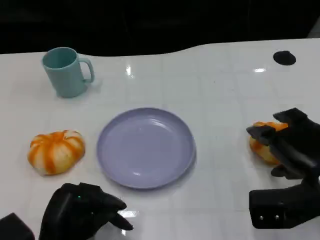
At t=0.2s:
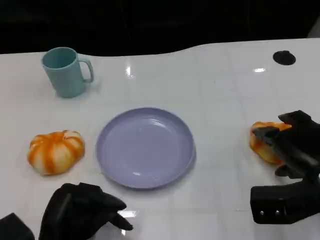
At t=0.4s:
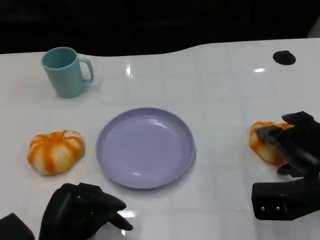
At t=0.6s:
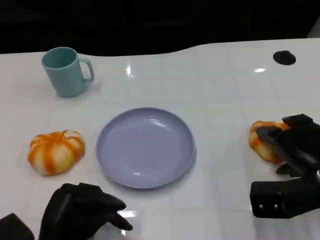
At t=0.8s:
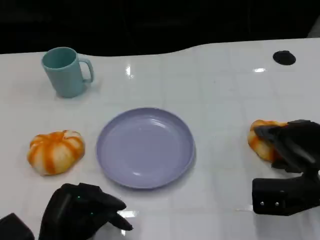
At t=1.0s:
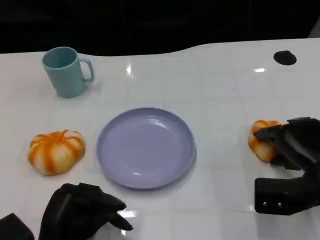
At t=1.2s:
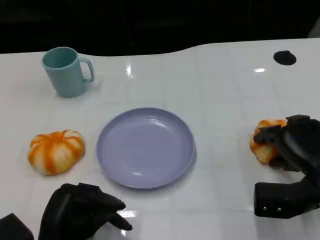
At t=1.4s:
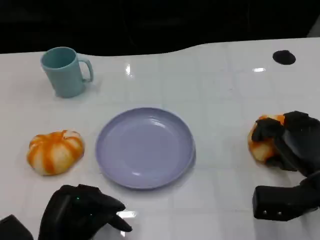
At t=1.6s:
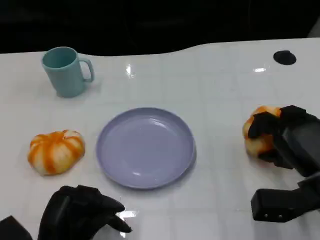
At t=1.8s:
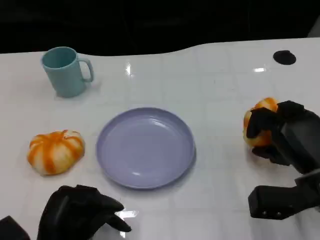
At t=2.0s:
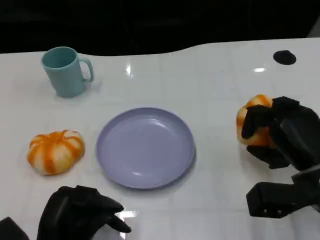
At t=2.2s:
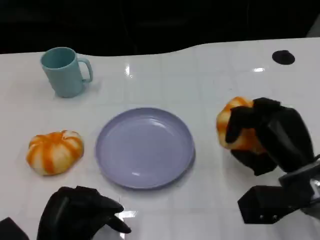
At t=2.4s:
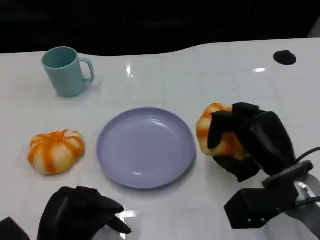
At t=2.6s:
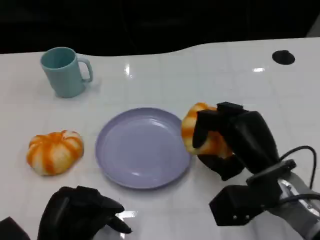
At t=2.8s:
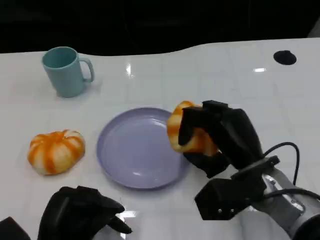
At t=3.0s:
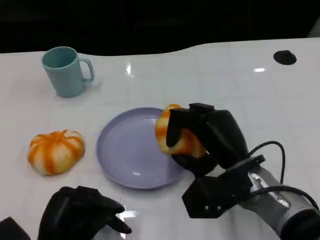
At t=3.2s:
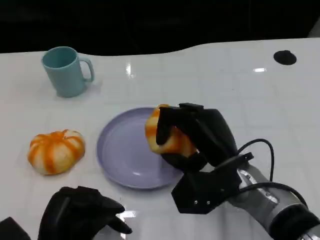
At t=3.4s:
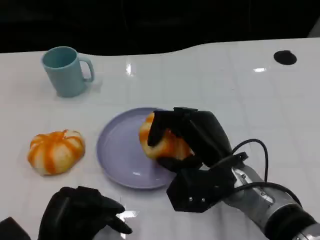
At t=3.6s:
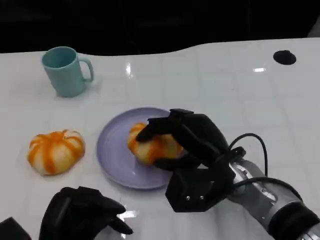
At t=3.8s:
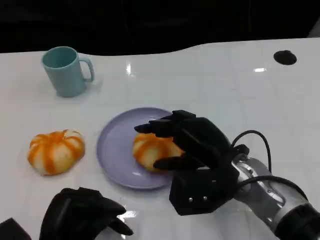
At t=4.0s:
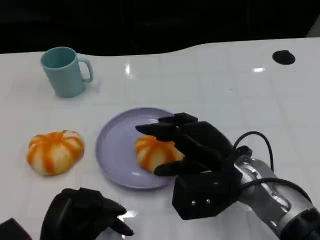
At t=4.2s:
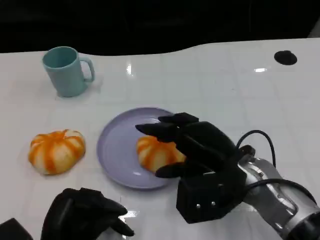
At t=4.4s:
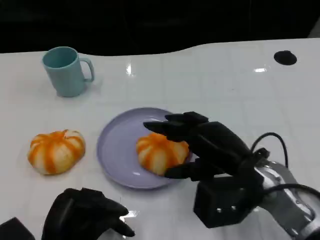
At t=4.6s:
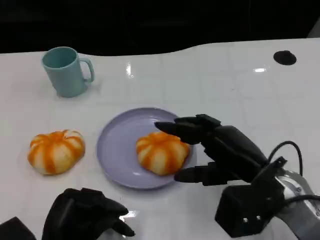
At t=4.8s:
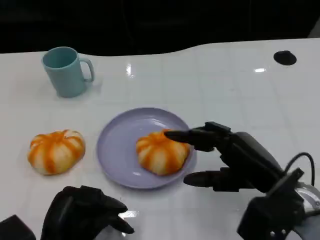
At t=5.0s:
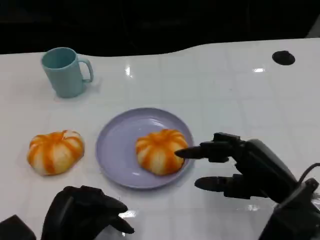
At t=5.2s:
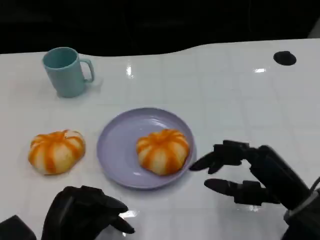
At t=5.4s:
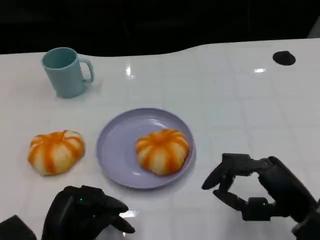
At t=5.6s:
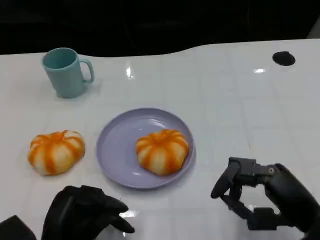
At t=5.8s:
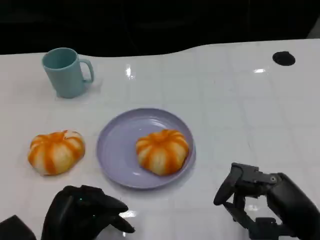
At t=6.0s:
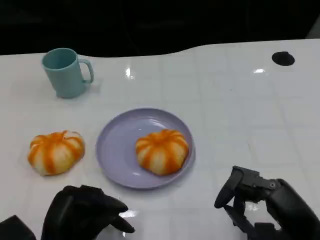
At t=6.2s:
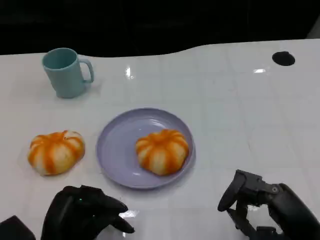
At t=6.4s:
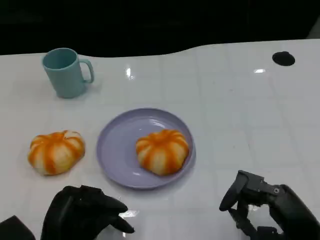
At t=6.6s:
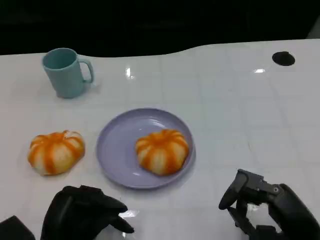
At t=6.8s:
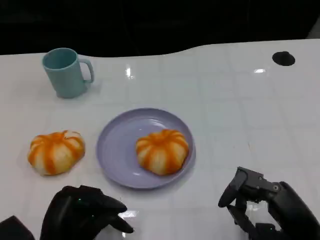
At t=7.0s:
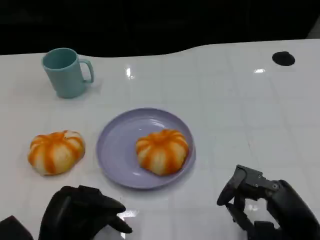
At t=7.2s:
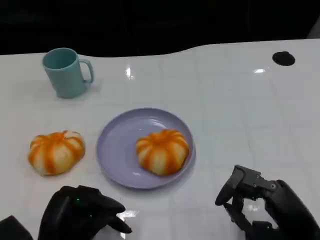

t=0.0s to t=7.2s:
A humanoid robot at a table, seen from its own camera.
Task of the whole recording: Grasp the bread from the table and place it into the plate.
t=1.4s to t=2.8s: The right hand is displaced to the left by roughly 10 cm.
t=4.4s to t=5.8s: The right hand heads backward and to the right, covering about 10 cm.
t=5.8s to t=7.2s: The hands move only a little.

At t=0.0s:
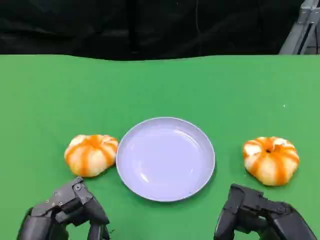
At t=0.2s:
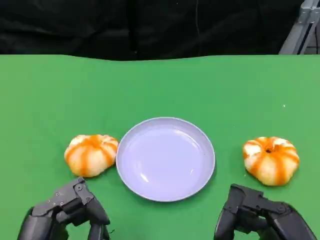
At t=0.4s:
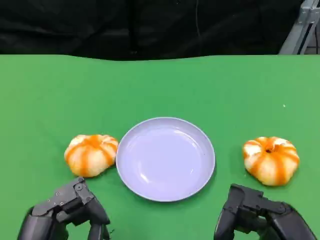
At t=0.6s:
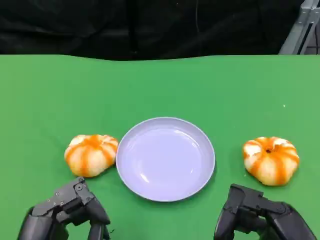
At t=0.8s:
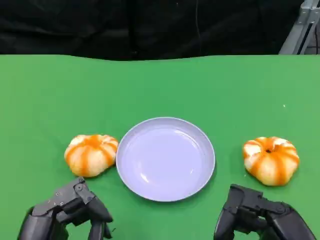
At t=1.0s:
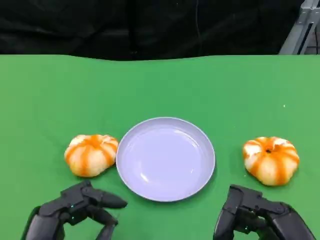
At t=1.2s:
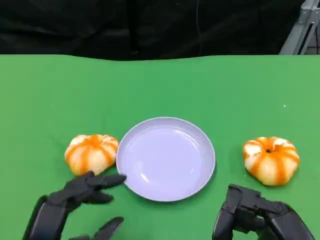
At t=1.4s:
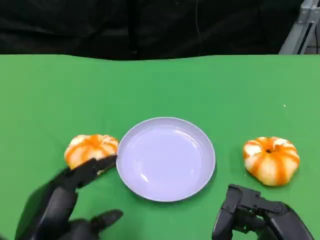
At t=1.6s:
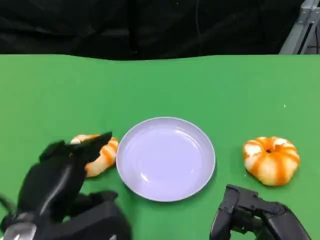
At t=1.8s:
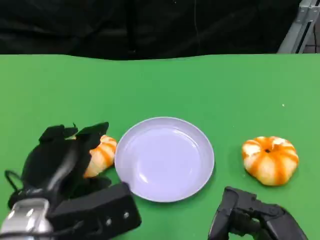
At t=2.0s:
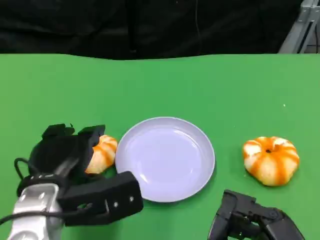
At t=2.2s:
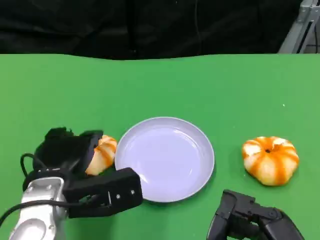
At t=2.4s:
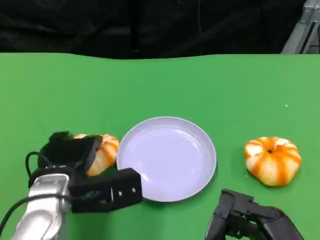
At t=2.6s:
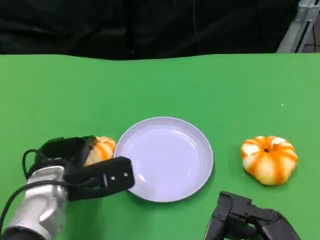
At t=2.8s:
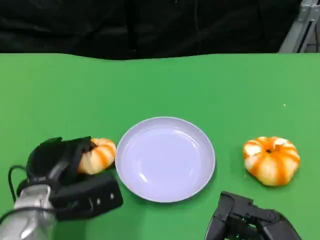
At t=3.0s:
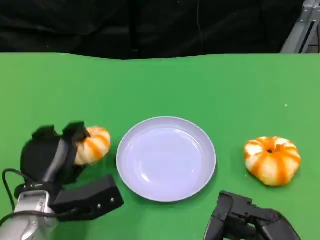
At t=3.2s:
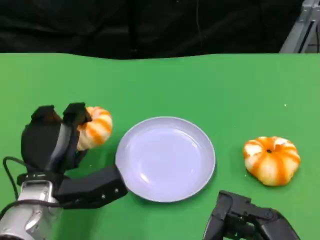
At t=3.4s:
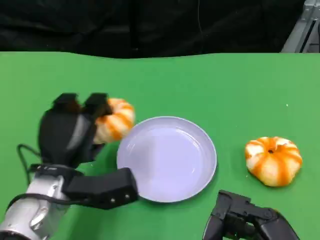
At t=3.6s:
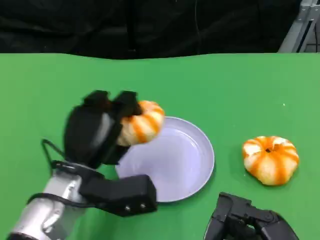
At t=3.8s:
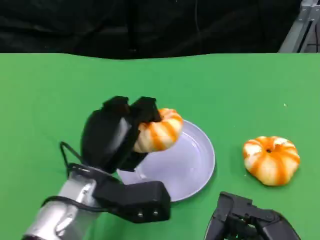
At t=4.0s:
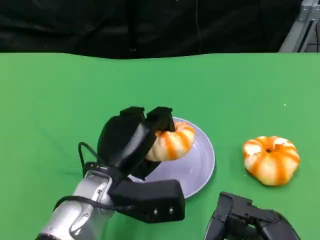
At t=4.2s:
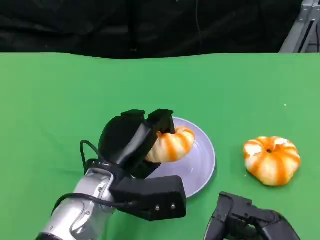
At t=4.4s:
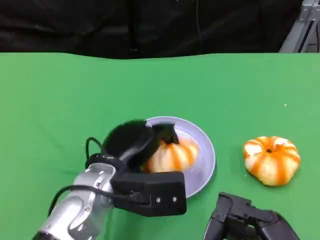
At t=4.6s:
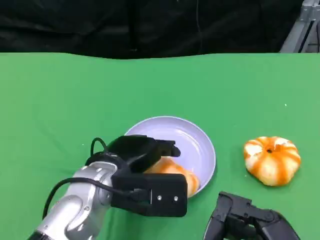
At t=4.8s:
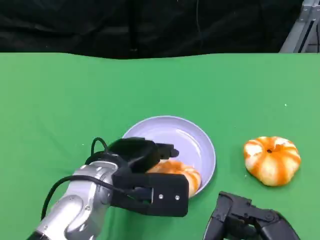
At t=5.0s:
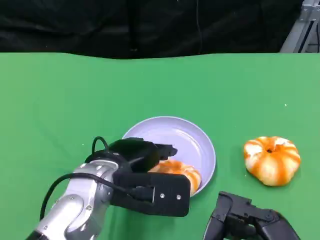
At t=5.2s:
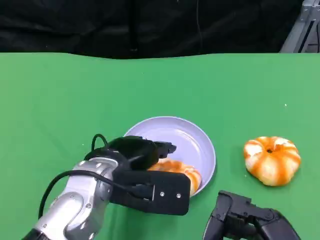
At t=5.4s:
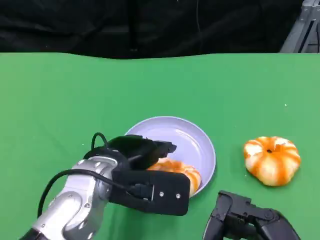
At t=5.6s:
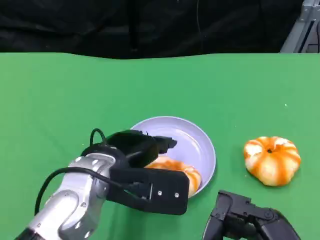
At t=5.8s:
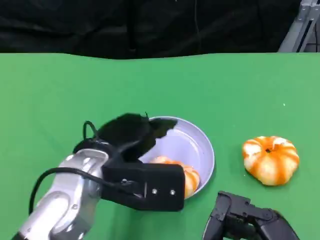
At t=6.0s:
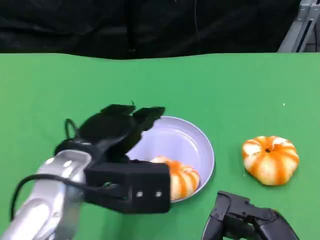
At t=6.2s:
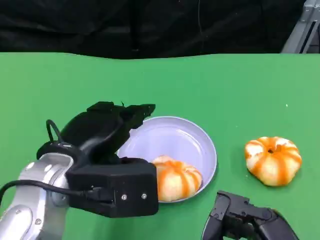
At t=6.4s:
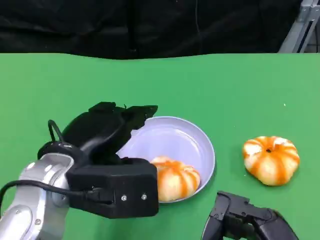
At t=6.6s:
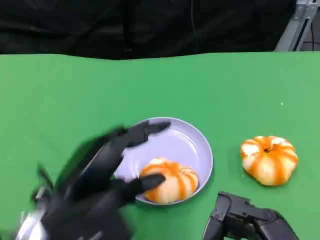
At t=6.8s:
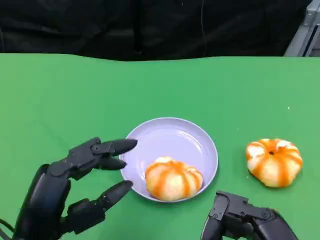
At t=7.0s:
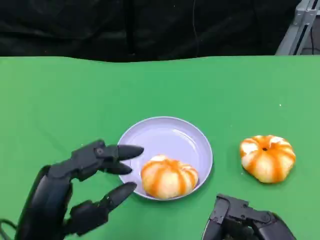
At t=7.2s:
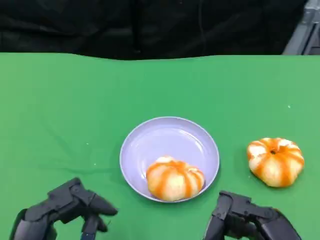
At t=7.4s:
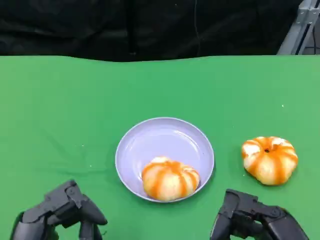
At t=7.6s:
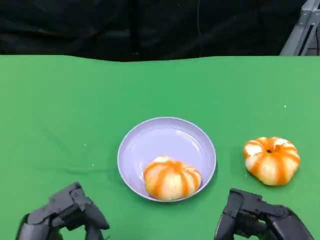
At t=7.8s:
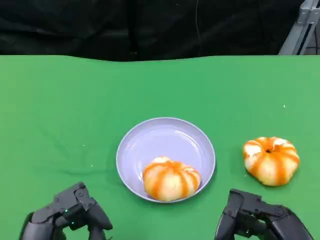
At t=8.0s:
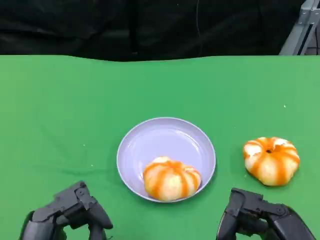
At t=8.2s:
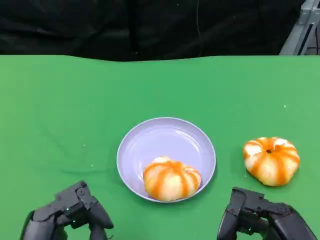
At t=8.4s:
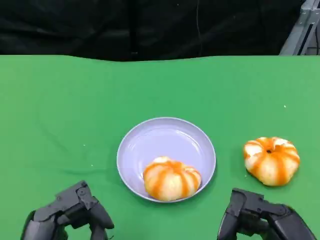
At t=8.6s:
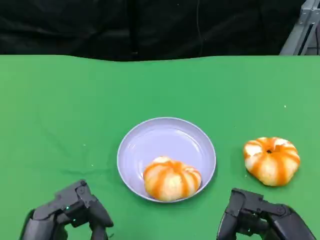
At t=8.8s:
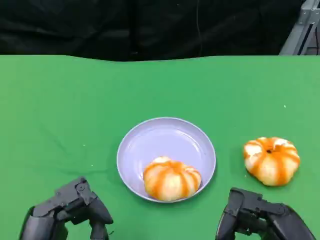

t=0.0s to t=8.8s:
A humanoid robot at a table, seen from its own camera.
Task of the whole recording: Grasp the bread from the table and place it into the plate.
t=1.4s to t=3.0s: The left hand travels forward and downward by about 15 cm.
t=3.0s to t=4.4s: The left hand is displaced to the right and upward by about 10 cm.
t=4.4s to t=5.8s: The left hand changes place by approximately 5 cm.
t=5.8s to t=7.4s: The left hand moves backward and to the left, approximately 15 cm.
t=7.4s to t=8.8s: Neither hand changes place.

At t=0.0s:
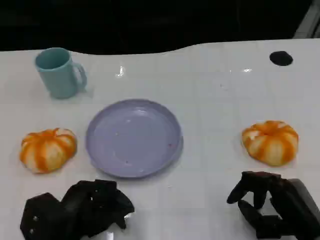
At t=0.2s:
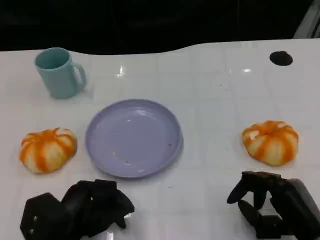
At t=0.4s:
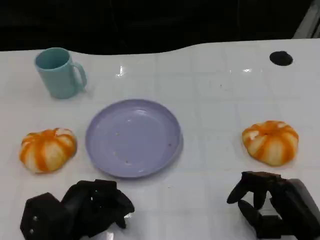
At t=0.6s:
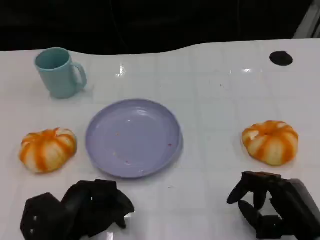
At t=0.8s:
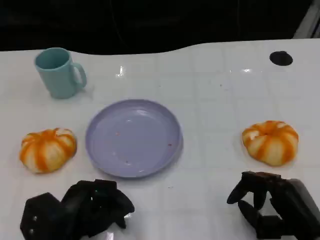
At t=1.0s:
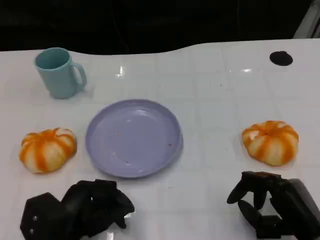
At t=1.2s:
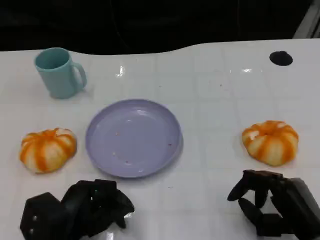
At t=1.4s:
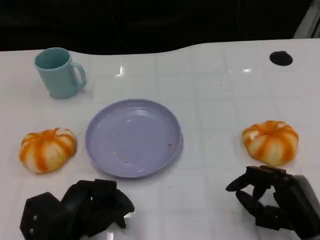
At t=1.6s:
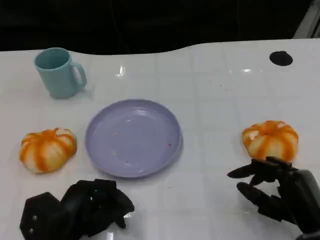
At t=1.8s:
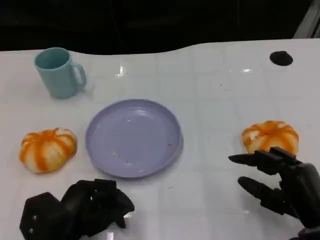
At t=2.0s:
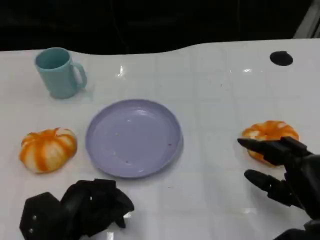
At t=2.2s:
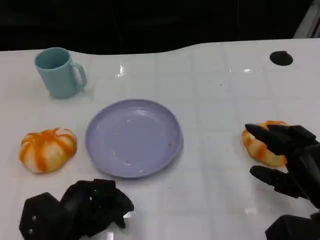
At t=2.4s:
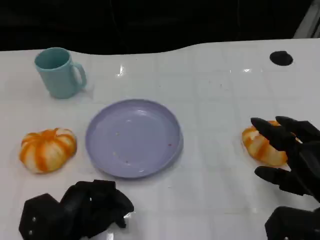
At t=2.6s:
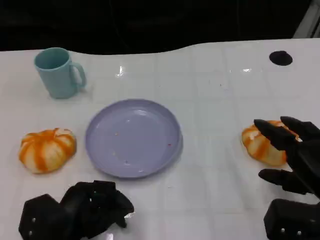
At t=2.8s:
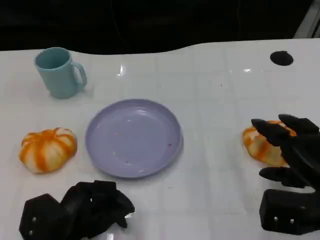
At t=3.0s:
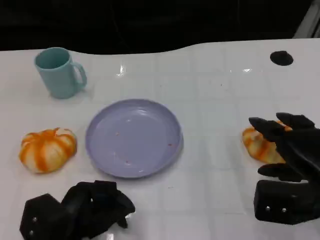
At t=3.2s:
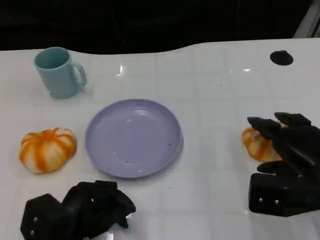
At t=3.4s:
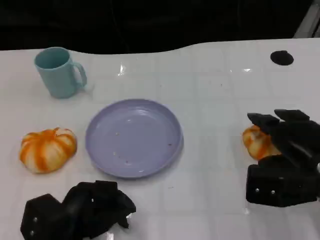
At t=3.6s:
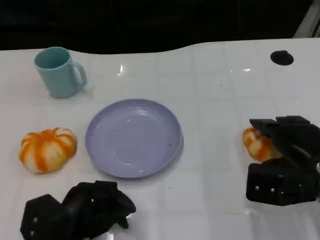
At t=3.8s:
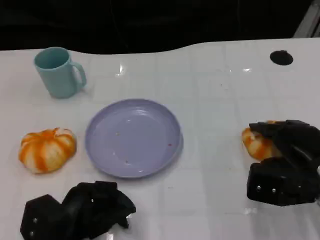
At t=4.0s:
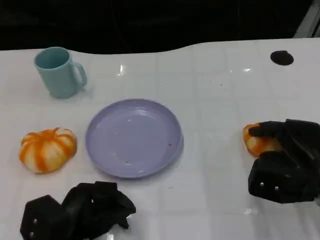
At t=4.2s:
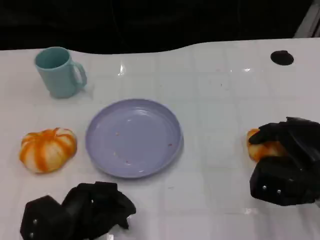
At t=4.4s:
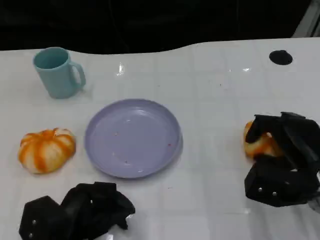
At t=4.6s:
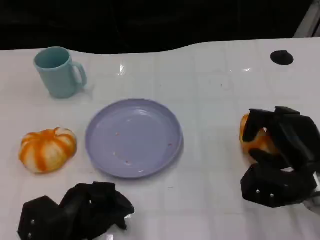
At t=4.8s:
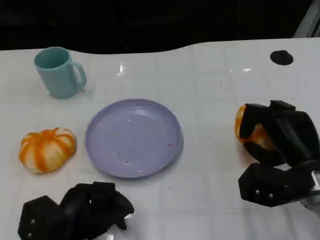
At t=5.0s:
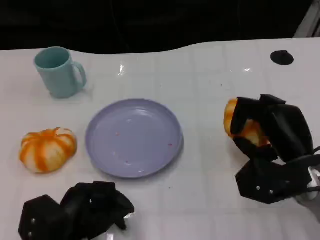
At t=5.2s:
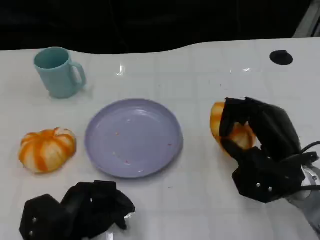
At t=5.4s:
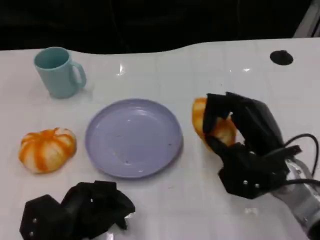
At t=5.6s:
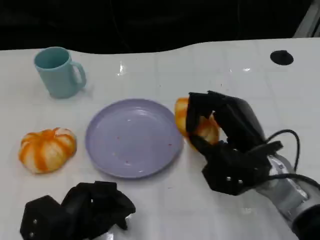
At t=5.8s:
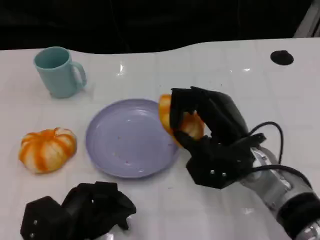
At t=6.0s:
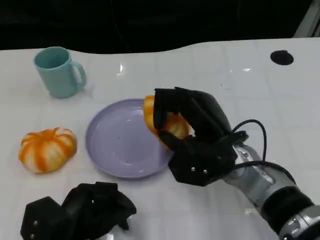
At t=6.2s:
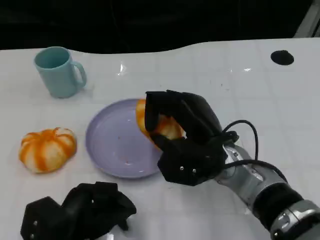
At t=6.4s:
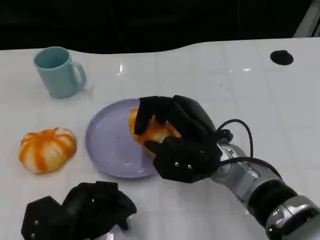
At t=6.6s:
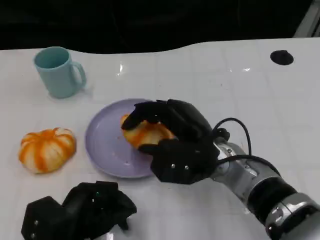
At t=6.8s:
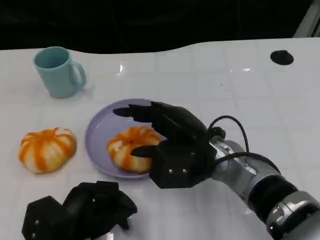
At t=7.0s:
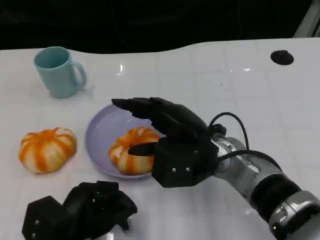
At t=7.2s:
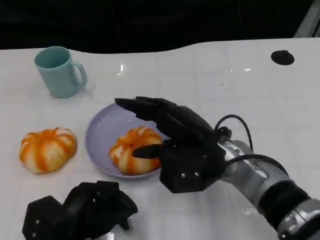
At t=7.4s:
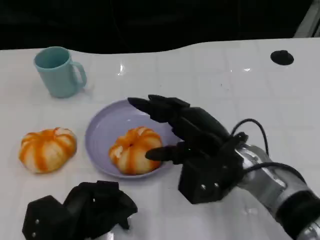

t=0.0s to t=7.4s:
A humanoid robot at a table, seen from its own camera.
Task of the whole recording: Grasp the bread from the table and place it into the plate.
t=0.0s to t=1.4s: The hands make only small movements.
t=1.4s to t=3.0s: The right hand moves forward and upward, approximately 10 cm.
t=3.0s to t=4.4s: The hands stay close to where they were, moving slightly.
t=4.4s to t=6.0s: The right hand moves to the left, about 15 cm.
